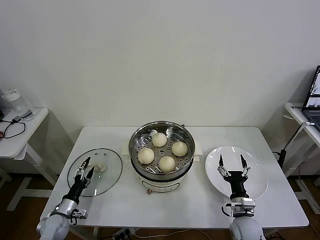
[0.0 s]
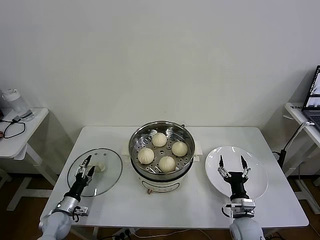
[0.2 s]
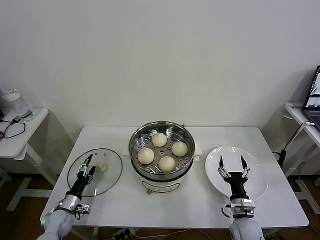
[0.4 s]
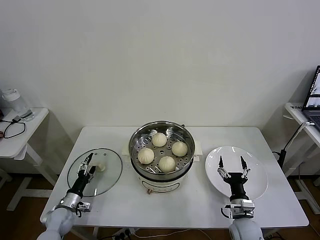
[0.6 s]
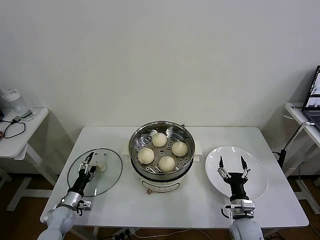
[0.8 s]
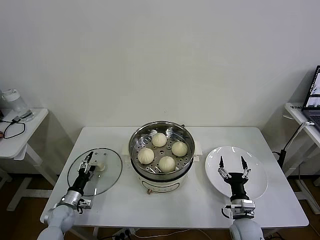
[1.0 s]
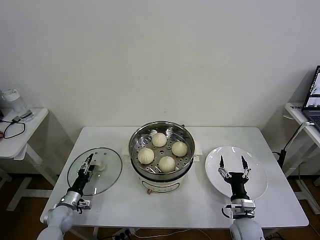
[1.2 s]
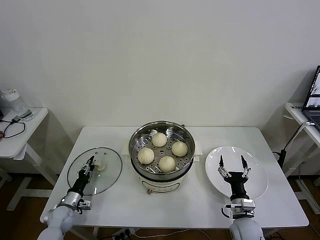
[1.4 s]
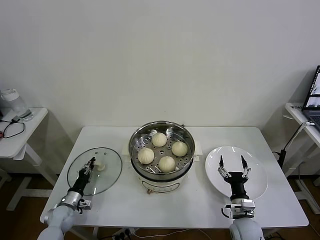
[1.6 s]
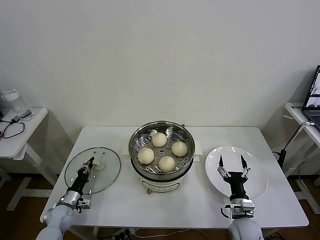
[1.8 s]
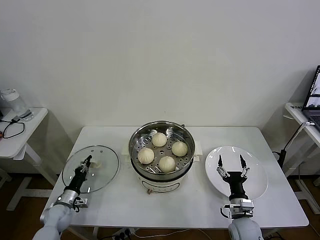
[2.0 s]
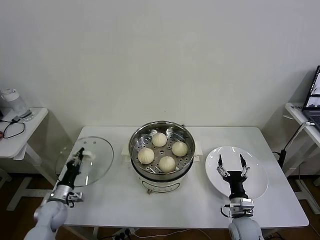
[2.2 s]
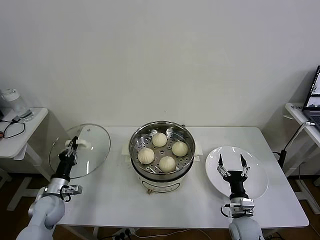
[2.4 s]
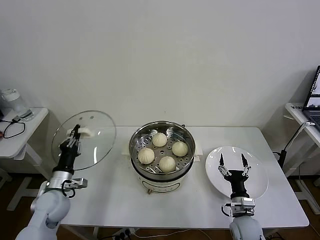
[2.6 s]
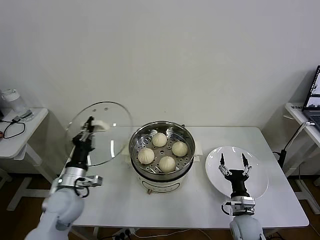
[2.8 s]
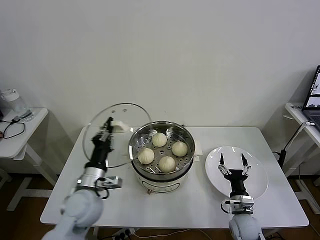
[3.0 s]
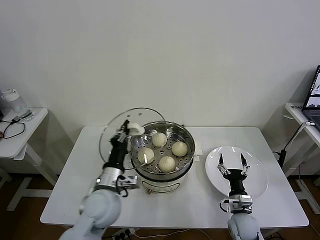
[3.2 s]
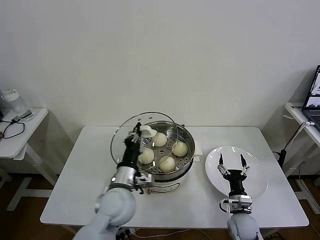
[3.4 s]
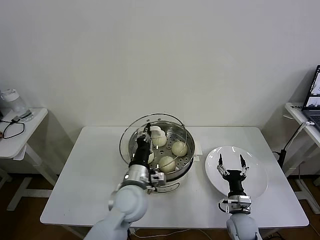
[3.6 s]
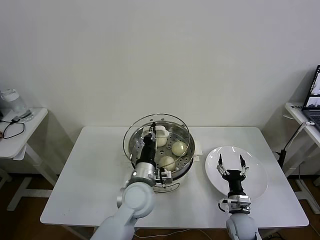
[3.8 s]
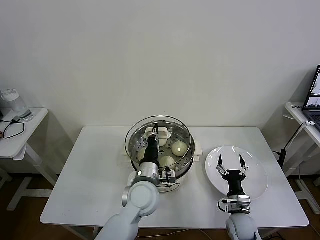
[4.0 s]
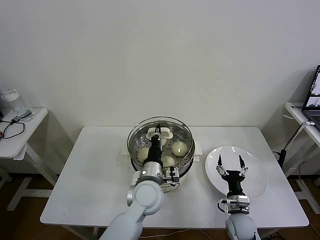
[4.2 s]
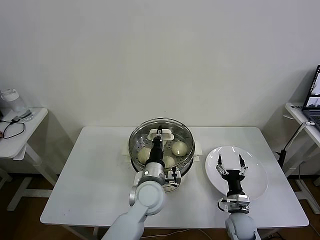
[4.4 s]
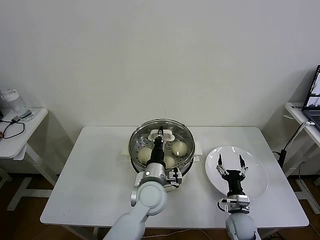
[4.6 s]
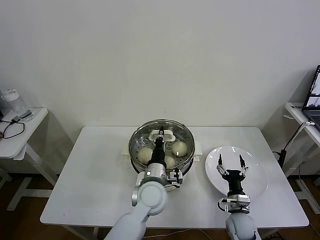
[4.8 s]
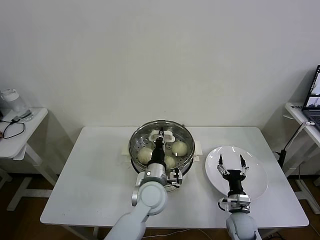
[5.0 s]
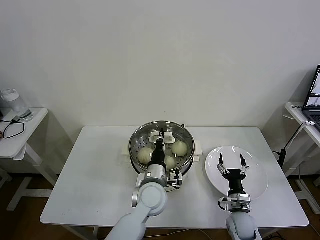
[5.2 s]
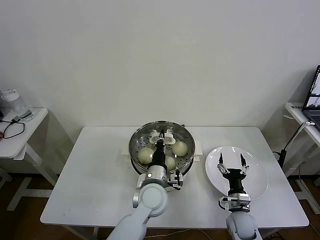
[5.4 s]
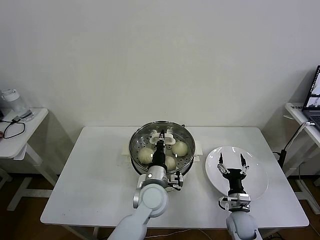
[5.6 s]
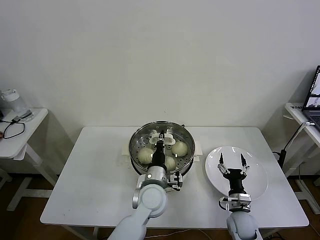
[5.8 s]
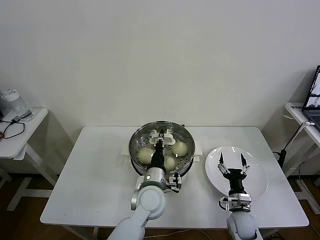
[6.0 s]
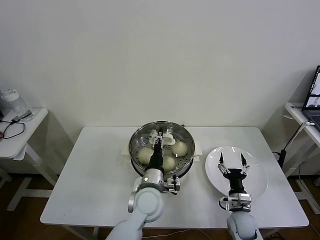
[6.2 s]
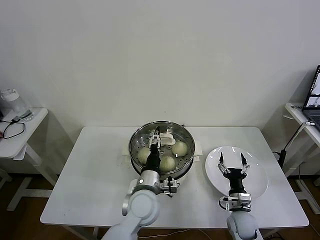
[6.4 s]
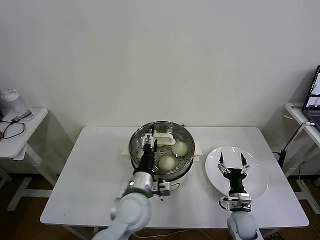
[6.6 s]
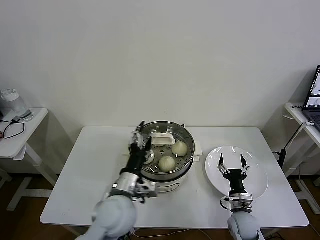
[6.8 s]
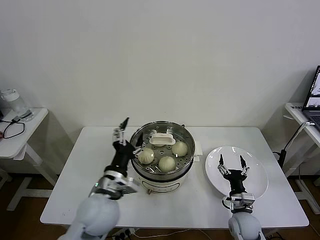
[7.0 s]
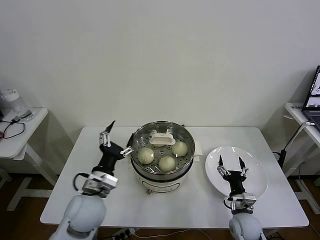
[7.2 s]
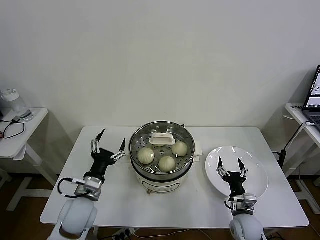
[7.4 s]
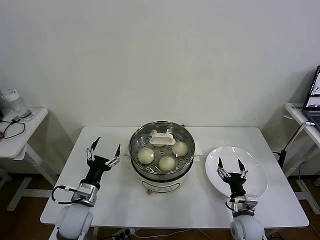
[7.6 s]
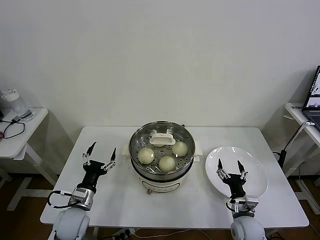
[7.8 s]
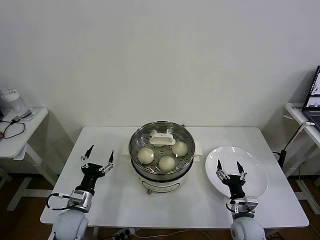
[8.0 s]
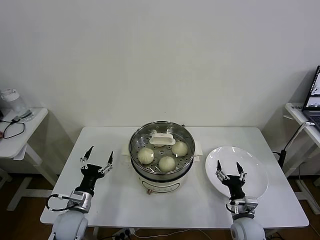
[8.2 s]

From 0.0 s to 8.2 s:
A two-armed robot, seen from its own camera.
Task of the whole recording: take steamed baozi put them in steamer then cover it.
Step, from 2.2 s to 6.2 s: Place the pot lid on the steamer with left gripper.
From 0.0 s to 1.6 s: The left gripper closes up.
From 1.6 s to 3.2 s: The left gripper moves upward and to the right, roughly 35 cm.
From 3.2 s to 5.0 s: The left gripper goes about 15 cm to the right.
From 5.0 s to 6.6 s: The left gripper shifts by roughly 5 cm, and opens.
From 6.6 s to 8.2 s: The left gripper shifts some 25 cm to the left and downward.
